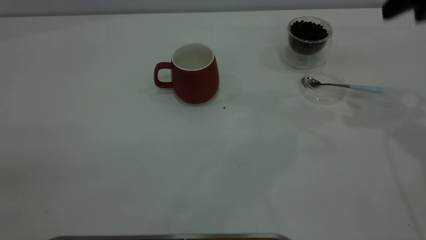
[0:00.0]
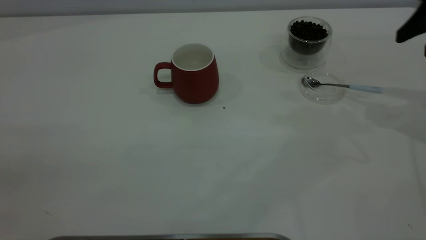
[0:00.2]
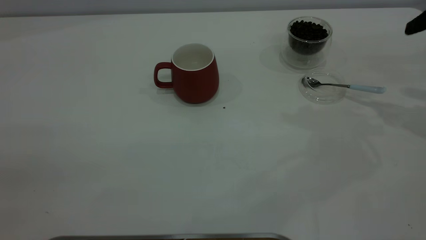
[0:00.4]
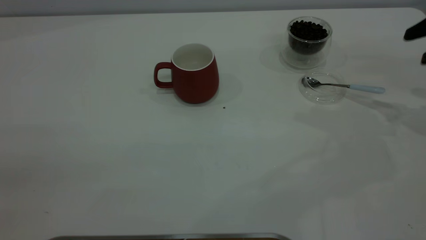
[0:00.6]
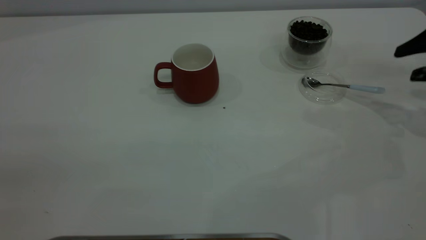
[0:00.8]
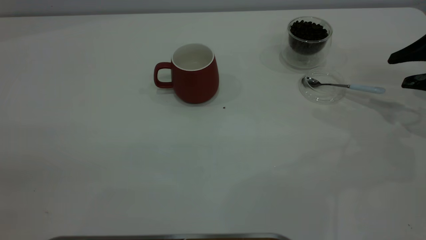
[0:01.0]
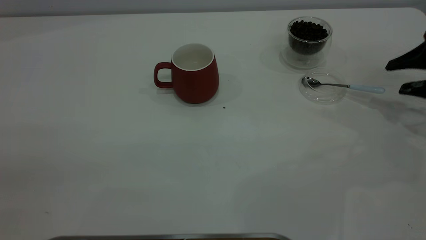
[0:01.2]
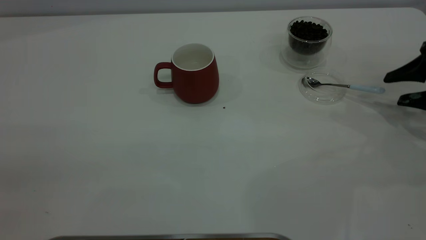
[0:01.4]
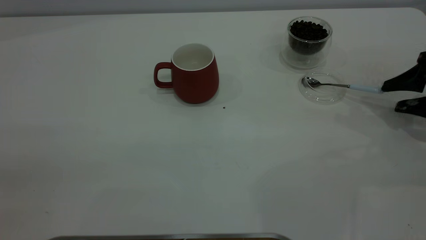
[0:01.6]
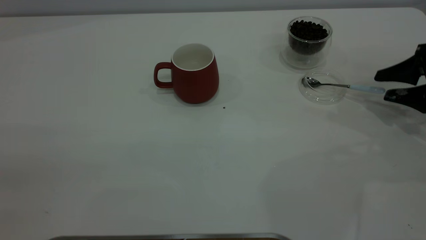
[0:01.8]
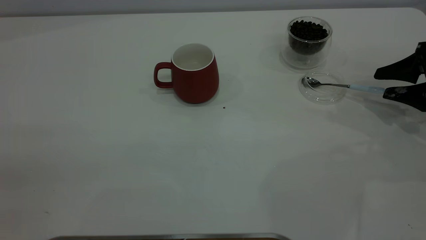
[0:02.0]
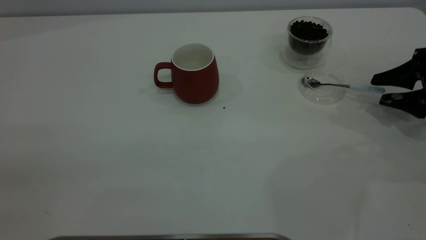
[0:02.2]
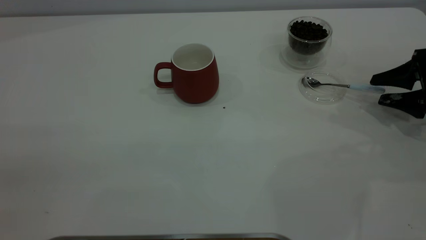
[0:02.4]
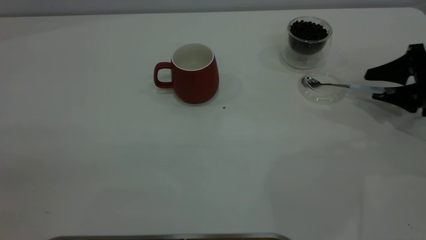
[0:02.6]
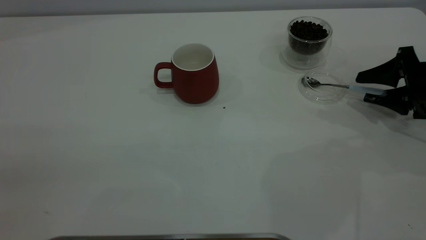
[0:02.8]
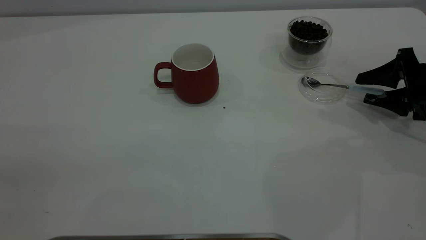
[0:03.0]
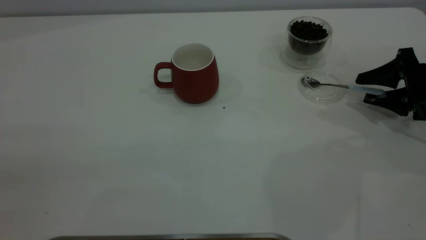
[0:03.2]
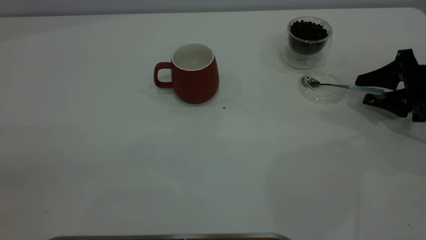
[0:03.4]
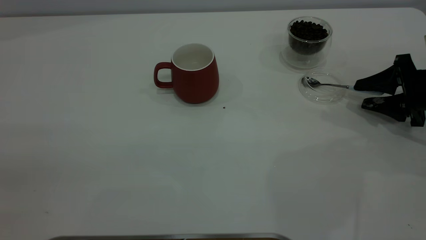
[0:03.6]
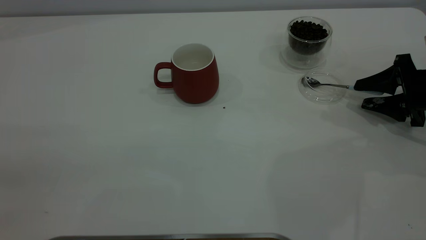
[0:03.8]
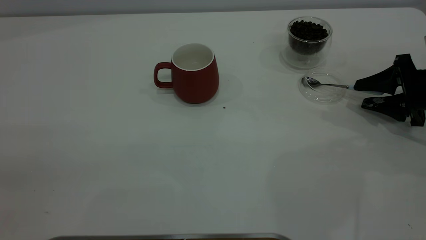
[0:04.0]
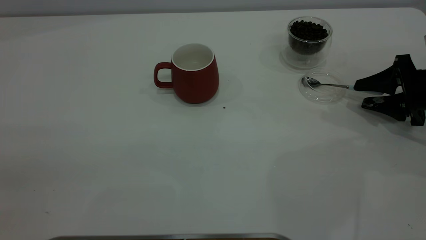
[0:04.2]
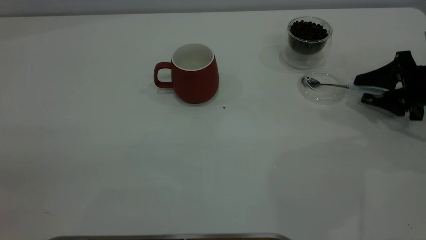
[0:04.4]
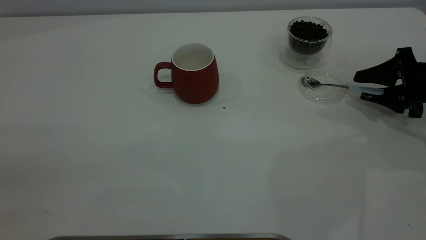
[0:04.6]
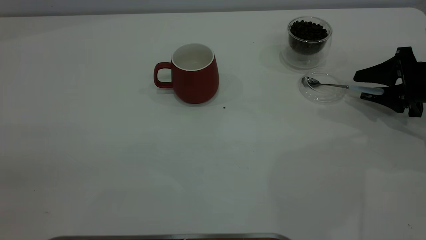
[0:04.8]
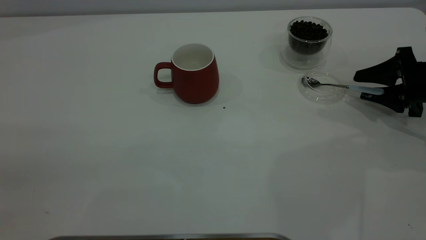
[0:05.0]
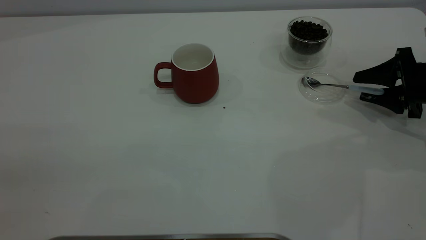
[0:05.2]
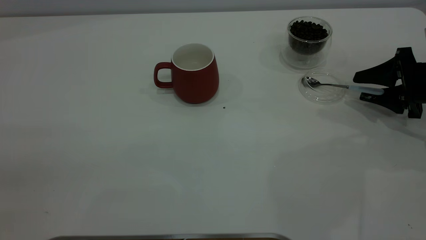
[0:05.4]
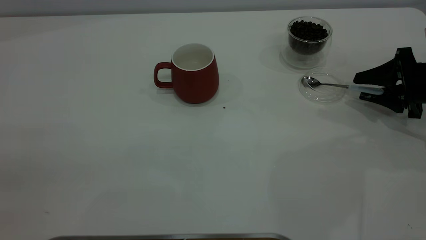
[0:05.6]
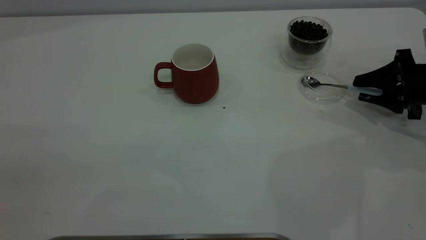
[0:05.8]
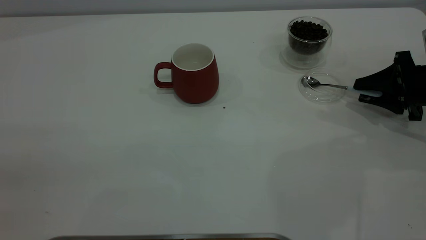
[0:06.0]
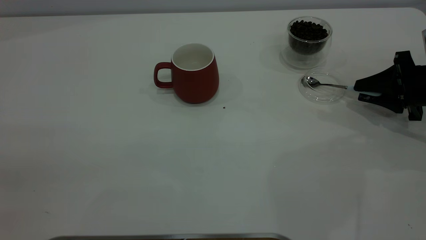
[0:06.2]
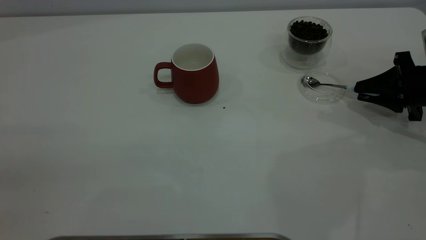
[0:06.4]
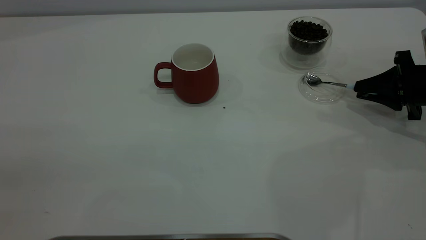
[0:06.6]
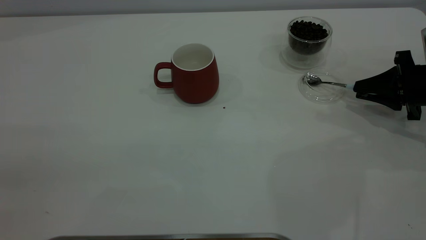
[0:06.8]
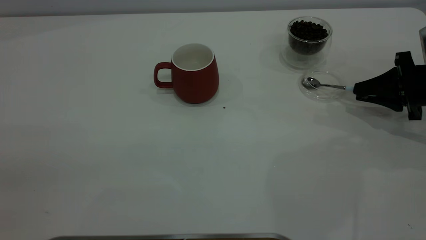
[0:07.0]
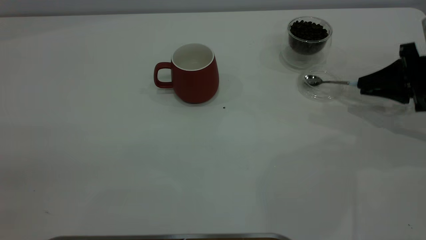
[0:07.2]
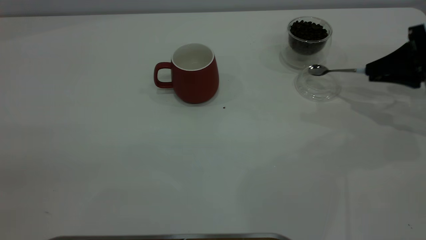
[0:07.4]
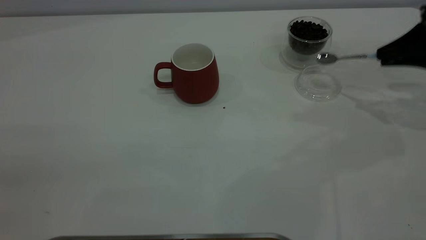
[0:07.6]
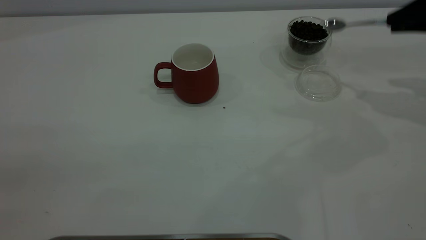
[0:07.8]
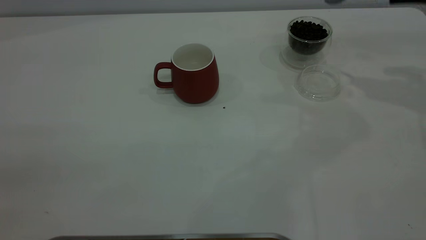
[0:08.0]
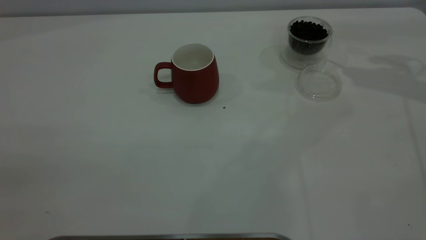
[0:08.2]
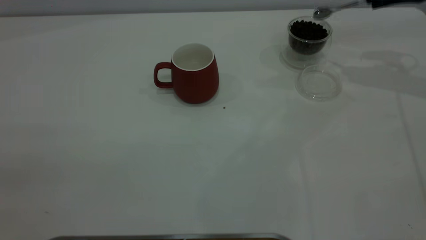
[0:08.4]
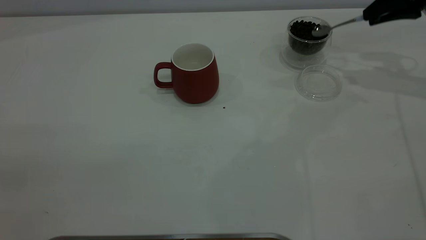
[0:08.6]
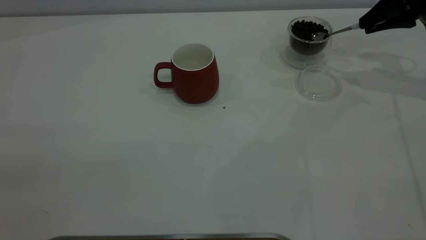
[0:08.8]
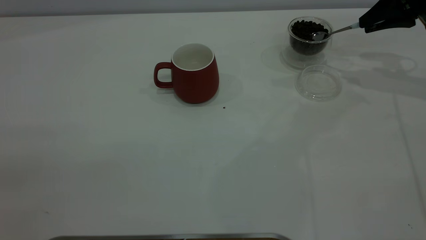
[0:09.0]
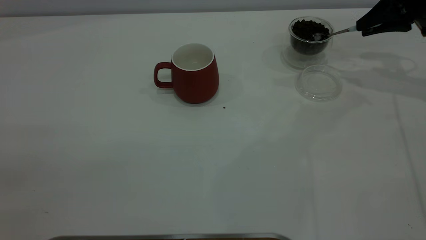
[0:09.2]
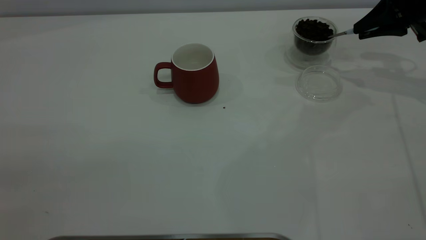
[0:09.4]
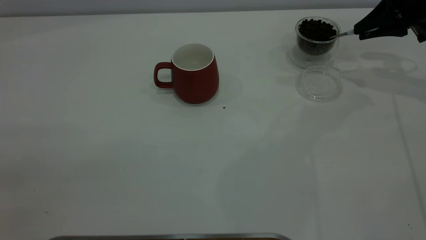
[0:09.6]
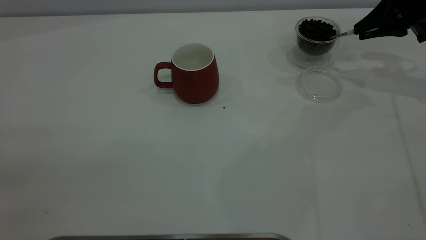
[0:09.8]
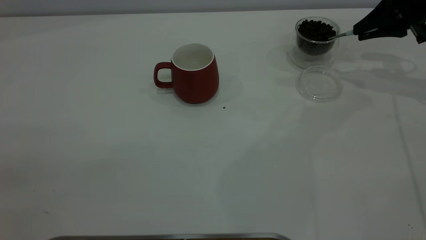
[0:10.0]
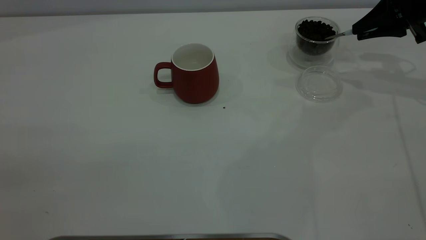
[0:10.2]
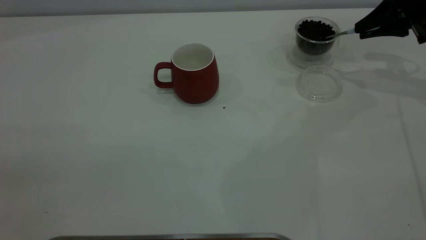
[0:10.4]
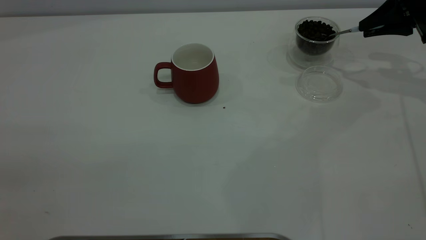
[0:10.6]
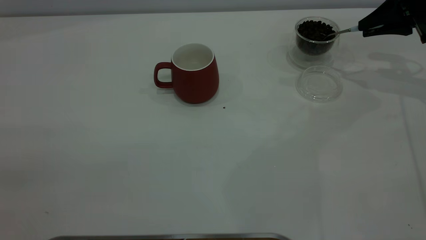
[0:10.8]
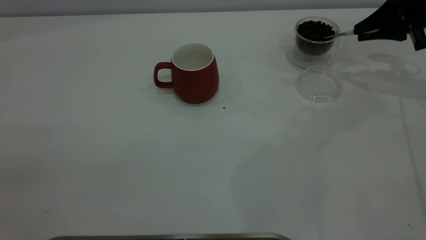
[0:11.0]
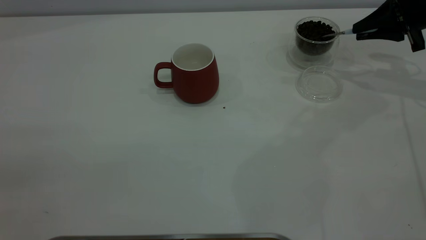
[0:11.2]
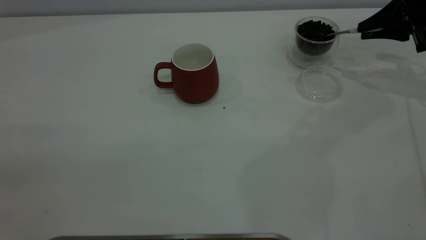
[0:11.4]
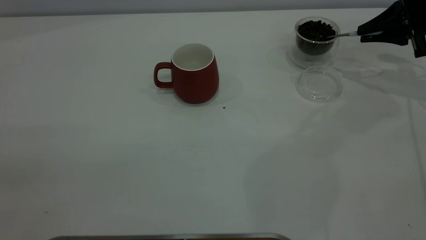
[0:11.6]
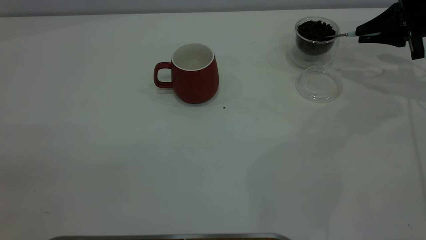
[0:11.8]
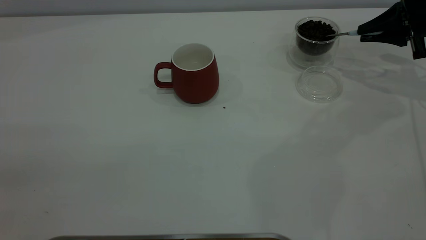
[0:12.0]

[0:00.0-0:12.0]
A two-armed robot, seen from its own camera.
Task of the whole recording: the left gripper place the red cup in the center of the table, the right gripper take the blue spoon from the cup lid and scoop out the coffee beans from the coffee cup and put them into the red cup, the right gripper put the spoon back into the cup lid.
Step, 0:00.0 to 0:07.4: Pick up the spoon.
0:00.0 to 0:01.6: The right gripper shifts roughly 20 cm downward and to the right.
0:01.6 to 0:03.0: The grippers stay close to where they were, moving slightly.
0:03.0 to 0:06.0: Both grippers stay put.
0:06.0 to 0:07.6: The right gripper heads upward, covering about 10 cm, and closes.
0:07.6 to 0:09.0: The right gripper moves forward, some 10 cm.
0:09.0 to 0:10.4: There are only small adjustments of the grippers.
0:10.4 to 0:12.0: The grippers make only small movements.

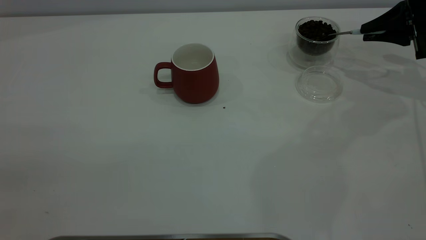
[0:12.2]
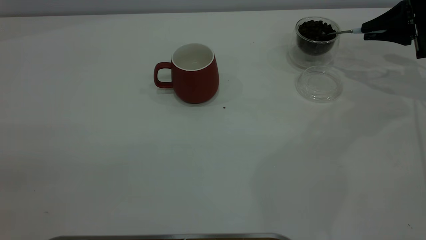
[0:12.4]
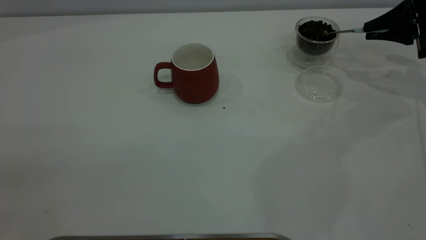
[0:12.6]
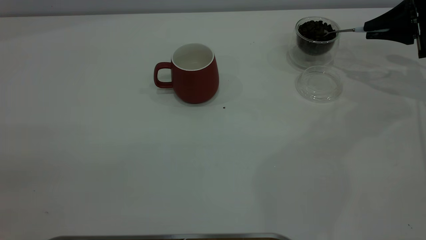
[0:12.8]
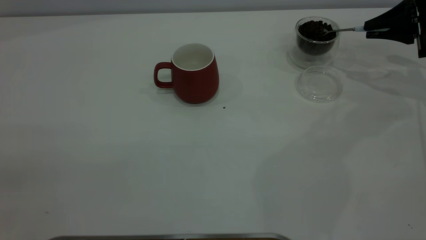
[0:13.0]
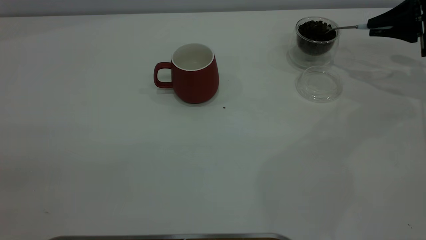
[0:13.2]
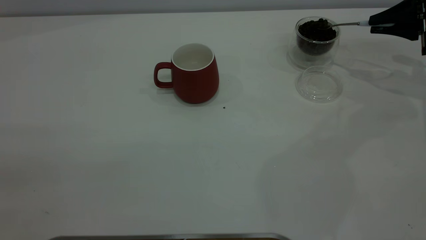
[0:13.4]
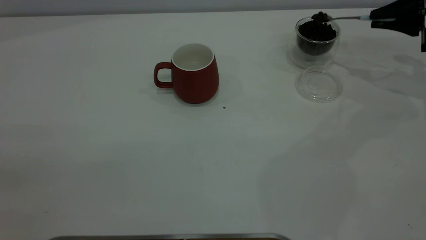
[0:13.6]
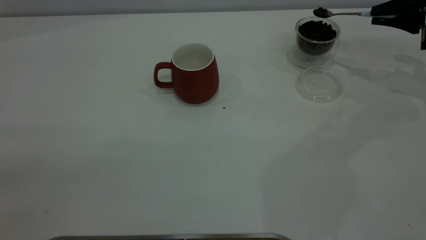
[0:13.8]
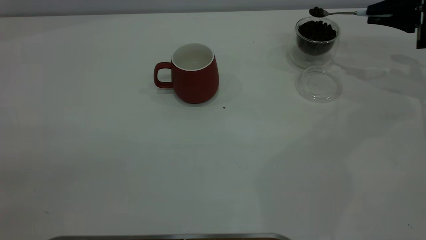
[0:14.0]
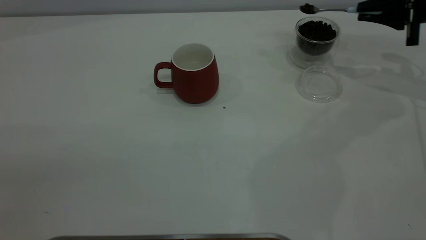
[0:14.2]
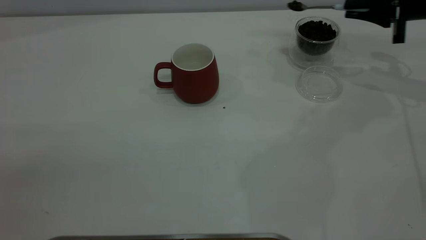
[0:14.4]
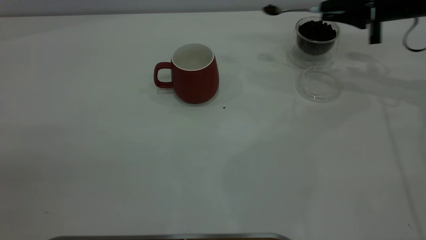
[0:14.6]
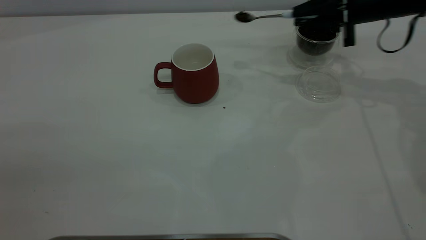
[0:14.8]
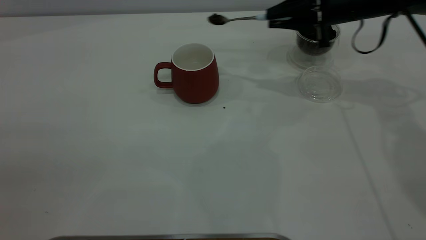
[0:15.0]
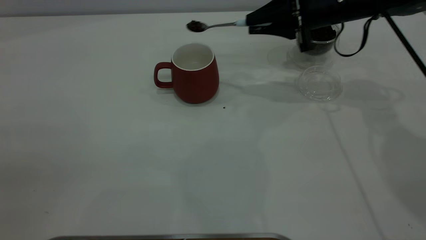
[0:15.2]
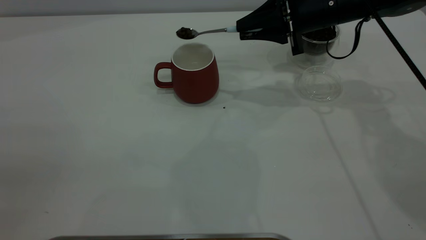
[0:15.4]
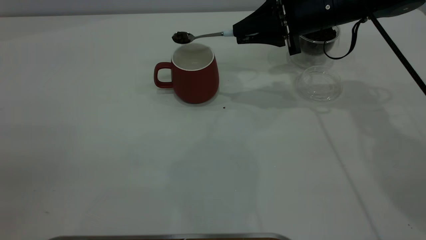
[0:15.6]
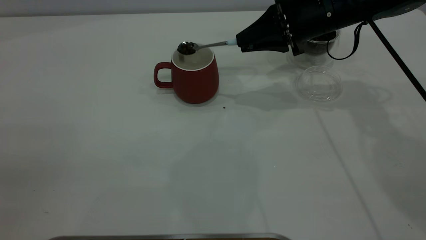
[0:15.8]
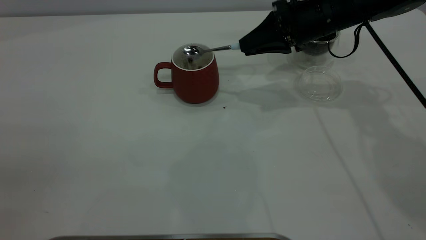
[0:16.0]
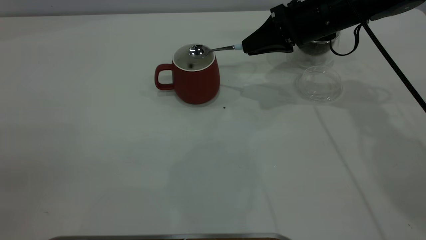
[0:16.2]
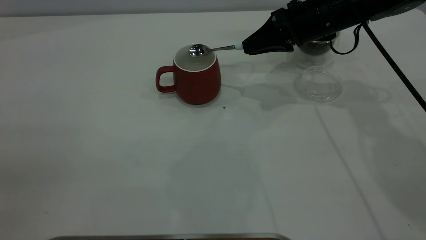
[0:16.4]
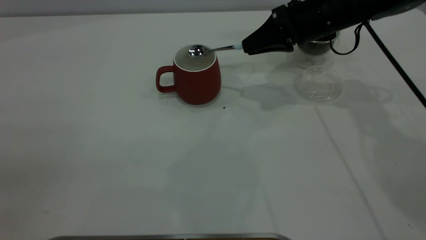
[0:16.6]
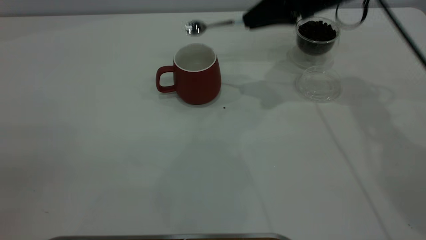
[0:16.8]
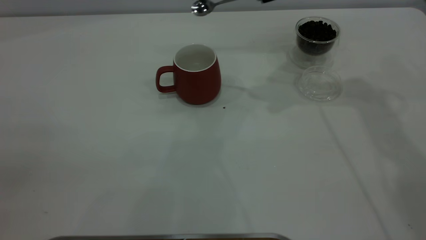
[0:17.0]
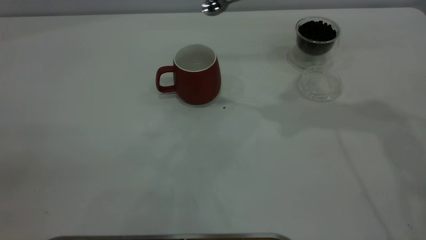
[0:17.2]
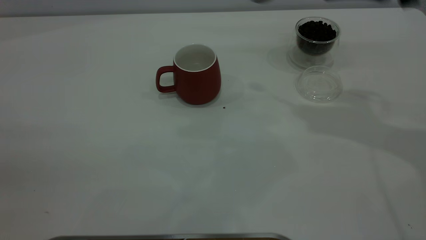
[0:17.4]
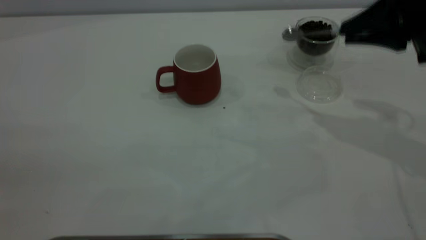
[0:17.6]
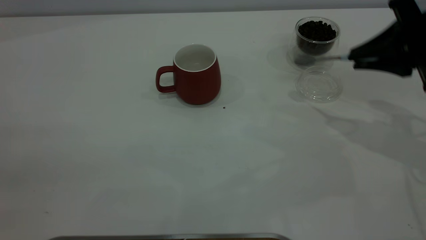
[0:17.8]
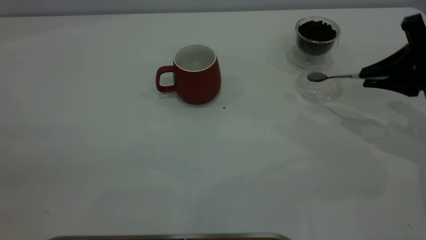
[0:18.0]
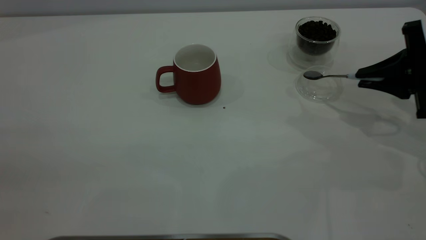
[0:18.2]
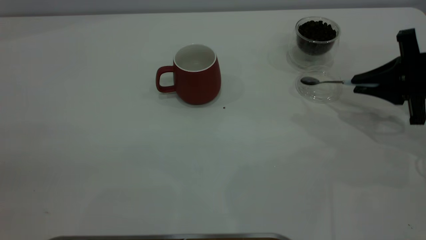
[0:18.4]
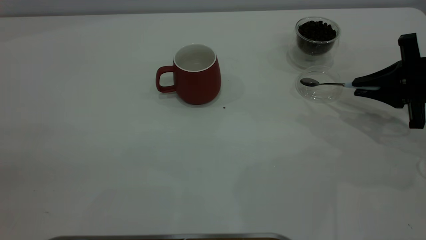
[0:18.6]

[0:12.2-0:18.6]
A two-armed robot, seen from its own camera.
Task of the whole recording: the left gripper place the red cup in the center of the table, the right gripper take the blue spoon from the cup lid and scoop out the coffee beans from the coffee cup and put them into the red cup, the right gripper put the spoon back into the cup lid.
Step, 0:12.2 to 0:16.4: Scoop a spoonful of beans into the cup.
0:12.2 to 0:13.8: The grippers stay close to where they were, moving slightly.
0:13.8 to 0:15.4: The right gripper travels to the left by some 20 cm.
0:15.4 to 0:17.0: The right gripper moves upward, roughly 10 cm.
0:17.0 to 0:18.6: The right gripper travels downward, to the right and backward by some 25 cm.
